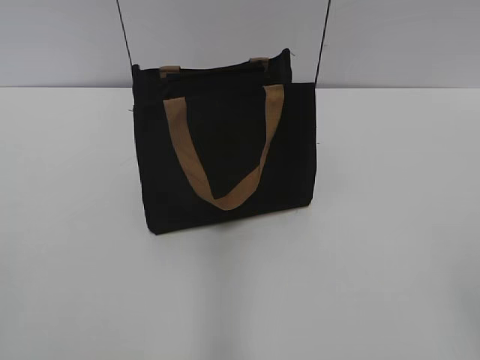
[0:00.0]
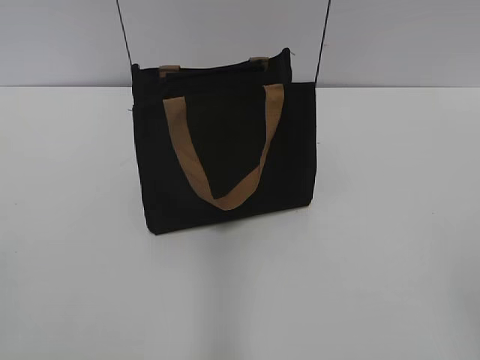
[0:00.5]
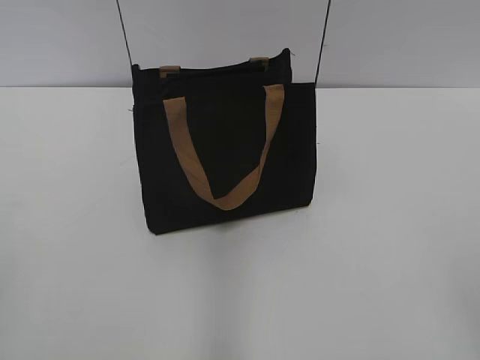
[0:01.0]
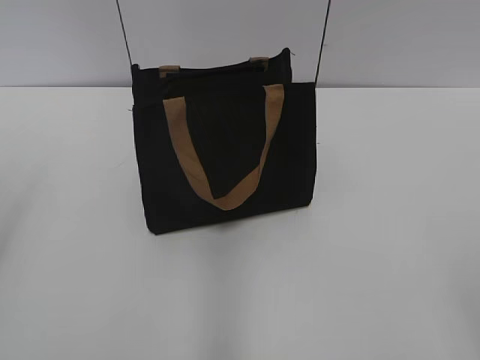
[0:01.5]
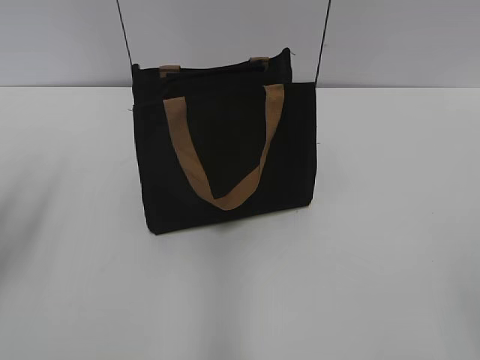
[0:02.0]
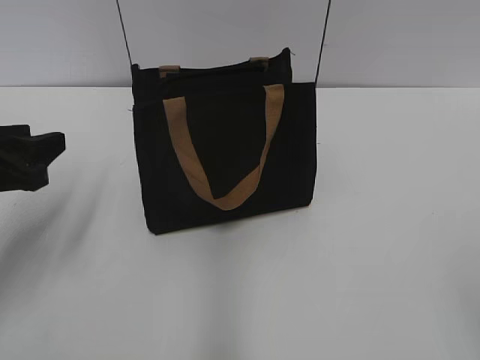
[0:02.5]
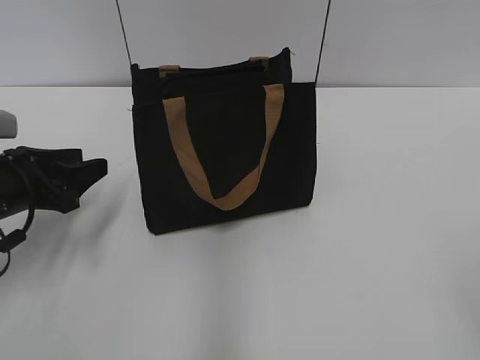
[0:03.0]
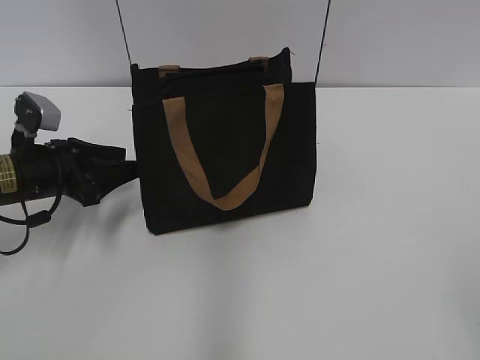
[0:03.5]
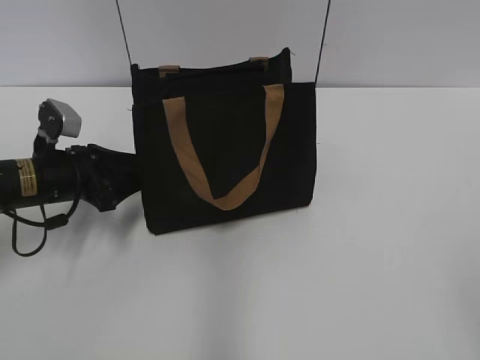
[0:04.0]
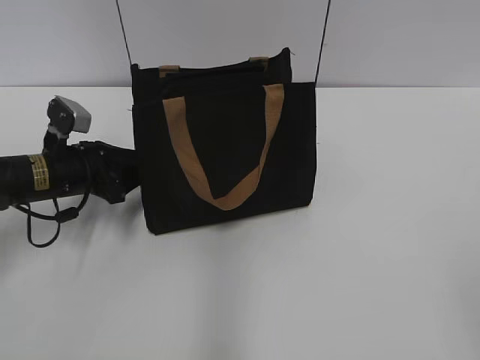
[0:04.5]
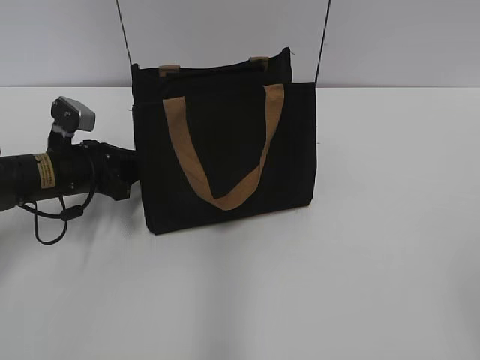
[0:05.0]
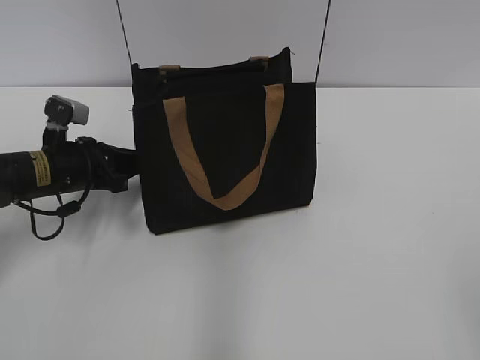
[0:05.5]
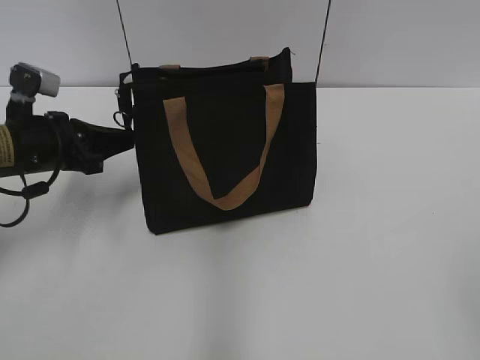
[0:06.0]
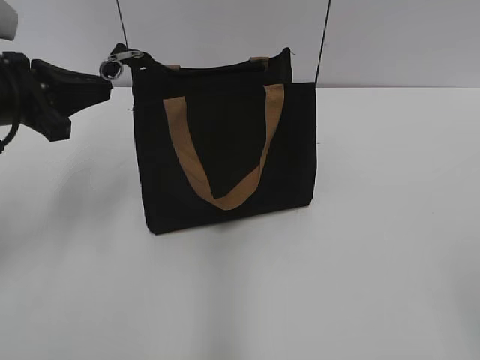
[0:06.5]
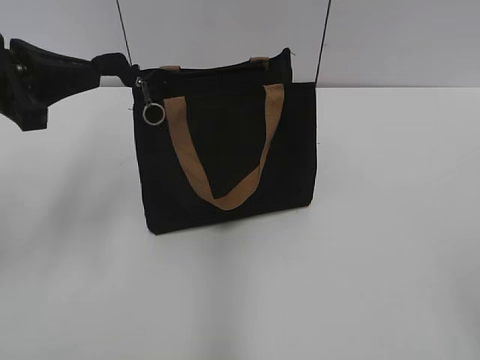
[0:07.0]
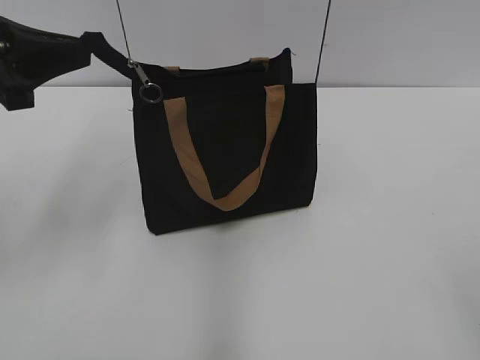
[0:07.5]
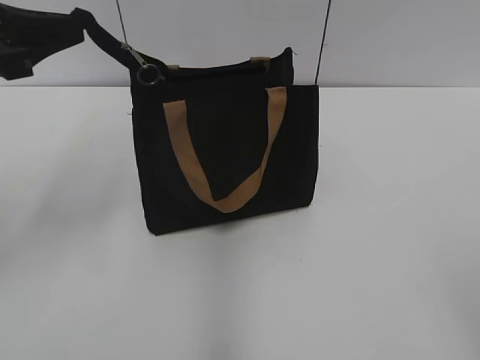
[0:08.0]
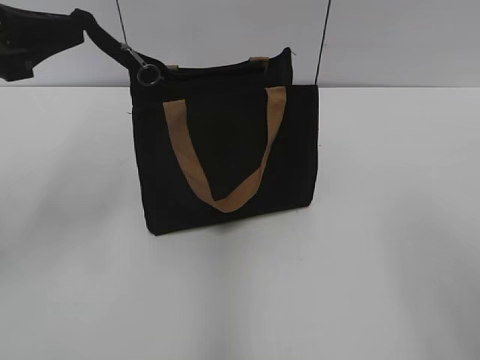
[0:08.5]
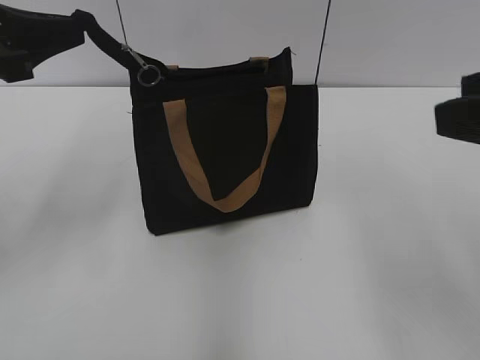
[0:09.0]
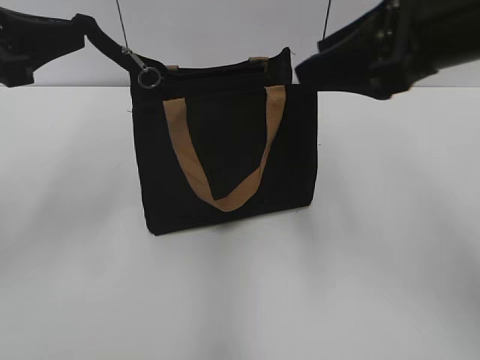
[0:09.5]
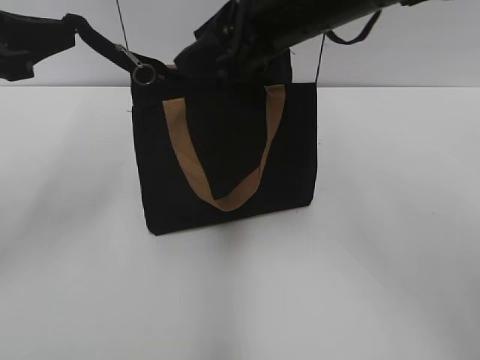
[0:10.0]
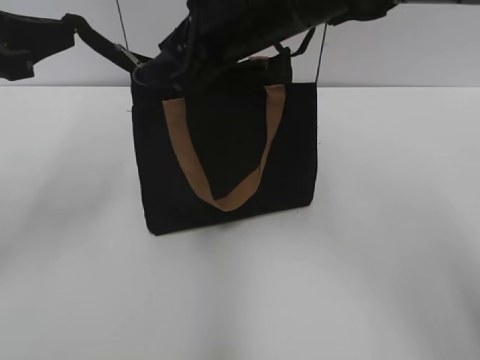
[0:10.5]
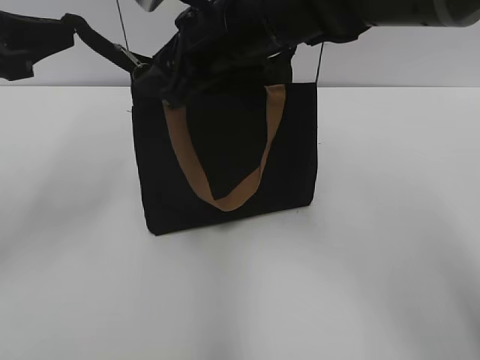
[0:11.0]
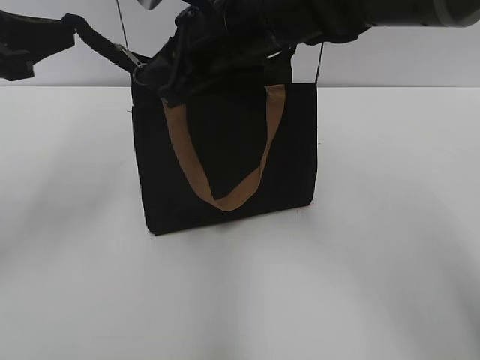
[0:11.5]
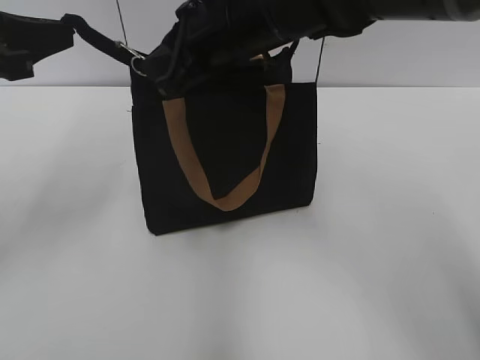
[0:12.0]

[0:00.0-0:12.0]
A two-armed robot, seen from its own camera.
0:02.0 to 0:04.0: The left gripper heads downward, forward and to the right, covering some 20 cm.
0:04.0 to 0:06.0: The left gripper closes its fingers.
0:06.0 to 0:08.0: The left gripper goes roughly 15 cm upward and backward.
0:08.0 to 0:10.0: The right gripper travels forward and to the left by some 40 cm.
0:10.0 to 0:12.0: The right gripper shifts some 5 cm to the left, and closes up.

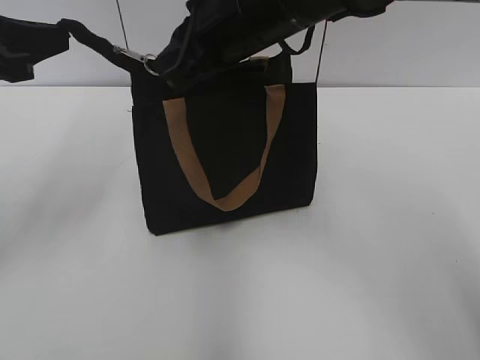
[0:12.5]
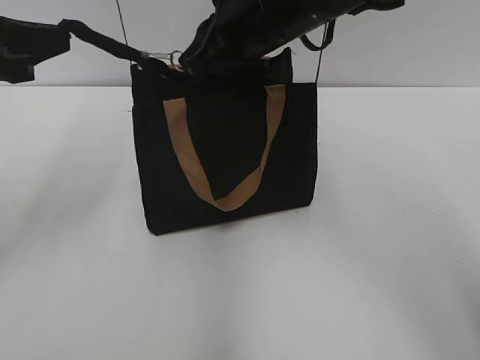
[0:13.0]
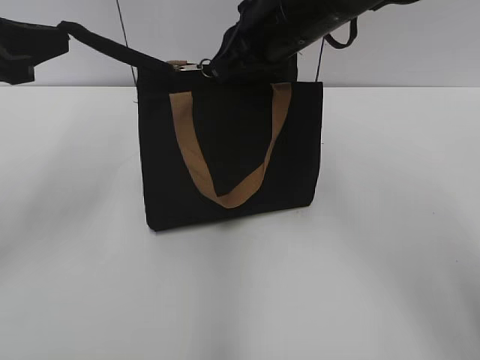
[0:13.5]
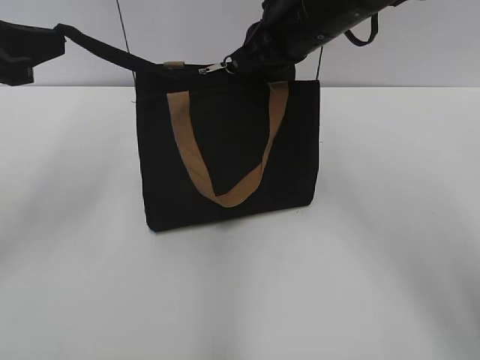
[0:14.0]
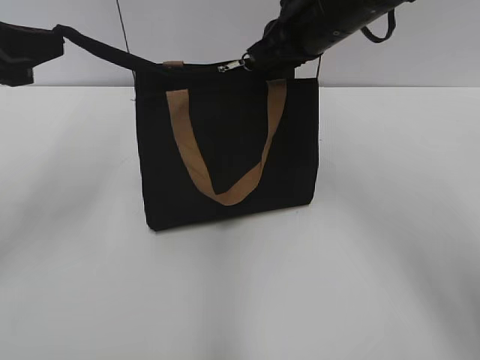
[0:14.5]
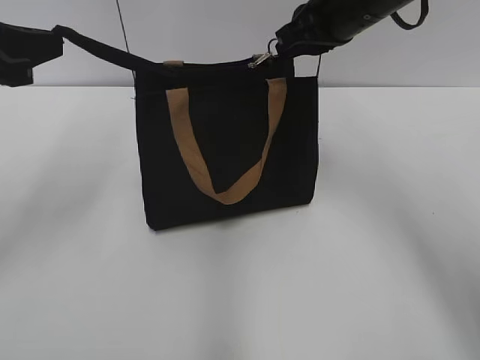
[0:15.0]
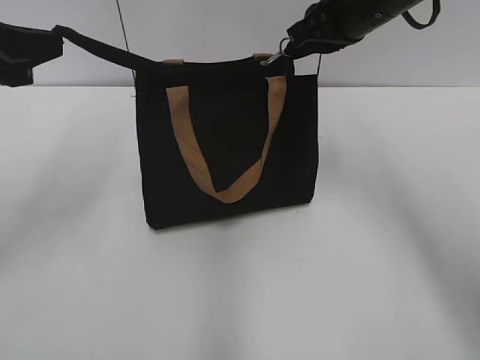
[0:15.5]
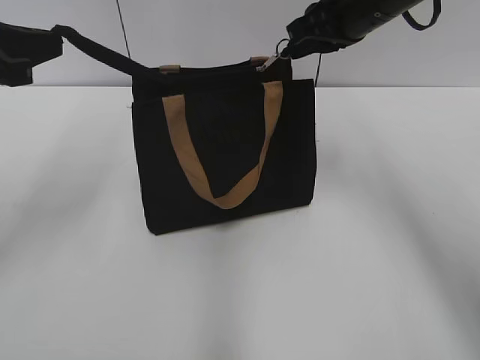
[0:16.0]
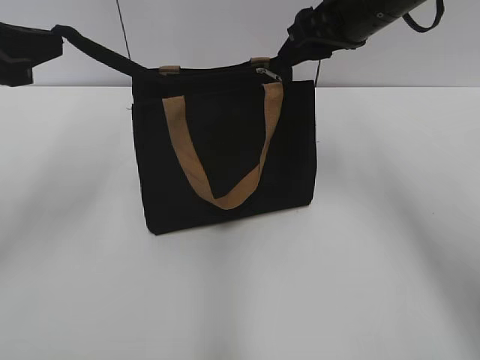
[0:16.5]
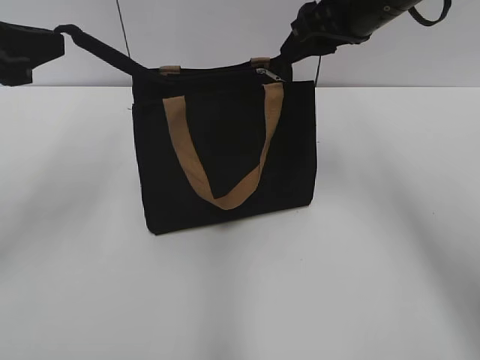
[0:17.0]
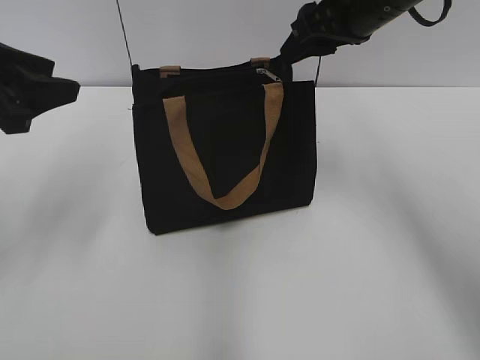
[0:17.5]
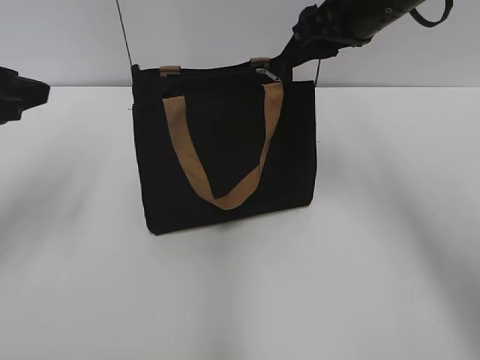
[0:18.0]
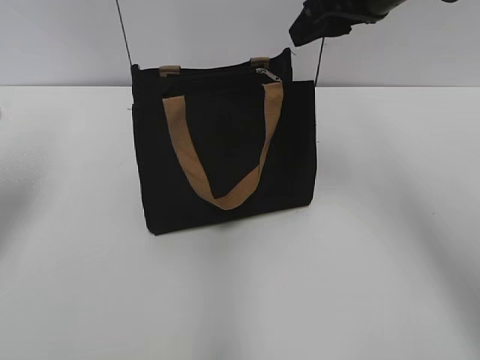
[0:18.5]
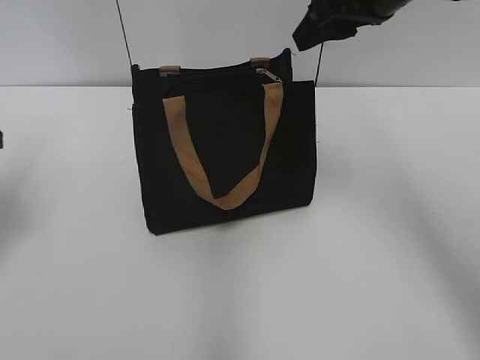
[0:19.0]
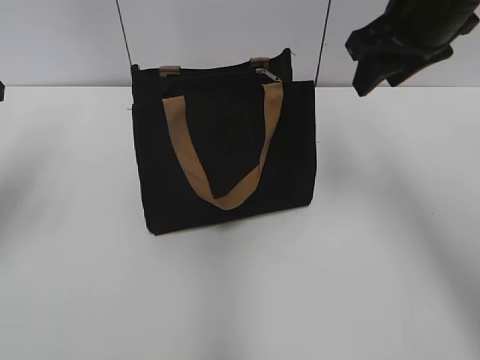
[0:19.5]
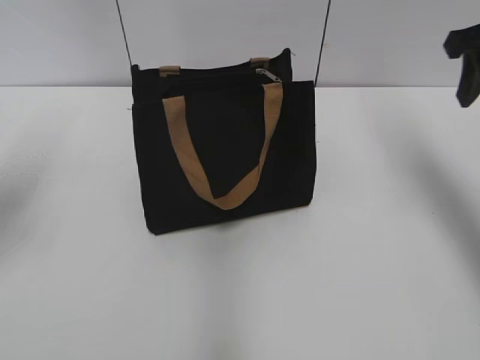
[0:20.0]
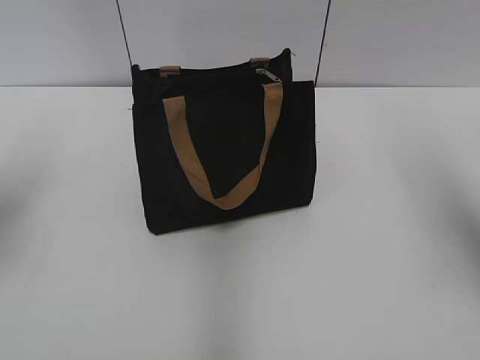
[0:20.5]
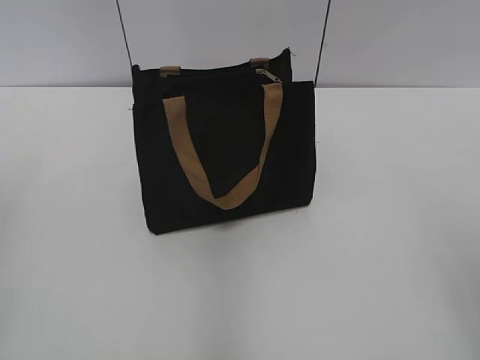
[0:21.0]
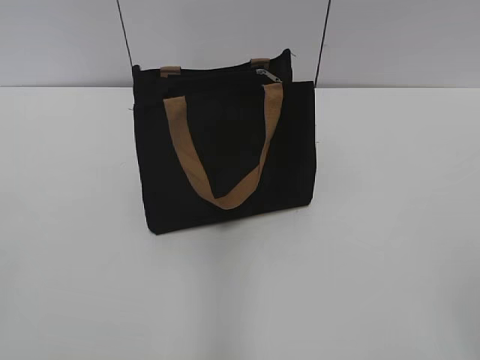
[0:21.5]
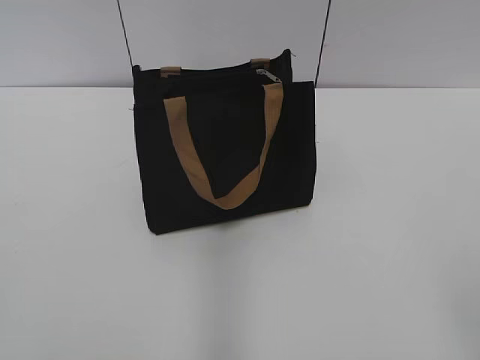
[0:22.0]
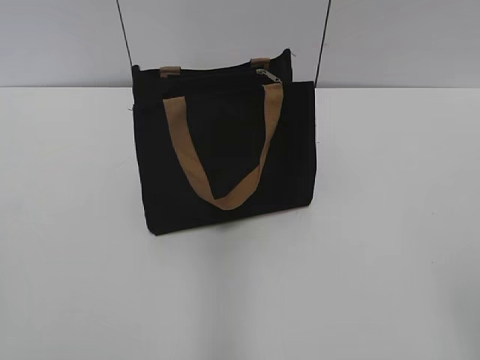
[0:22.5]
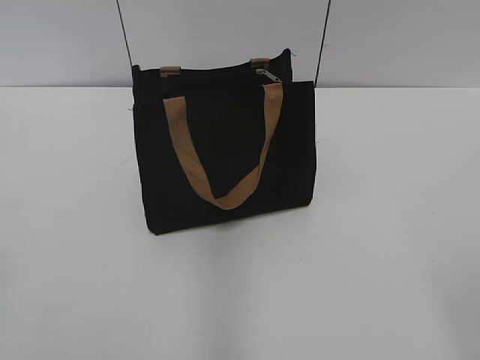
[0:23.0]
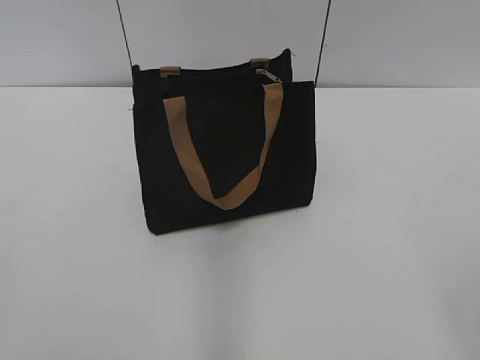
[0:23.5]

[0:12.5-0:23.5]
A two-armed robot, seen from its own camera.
Step, 0:12.5 to 0:16.0: Zip up the bag with your right hand.
0:12.5 to 0:14.5: The right gripper heads to the right, covering some 10 cm.
0:14.5 to 0:16.0: The grippers stay close to where they were, moving slightly.
0:16.0 to 0:18.0: The left gripper opens up; the right gripper opens up.
0:18.0 to 0:20.0: The right gripper moves to the right, approximately 10 cm.
0:20.0 to 0:21.5: The grippers both shift backward by about 30 cm.
